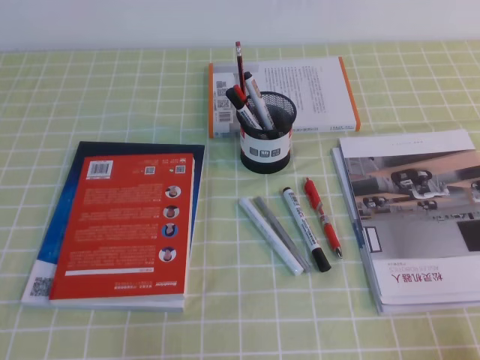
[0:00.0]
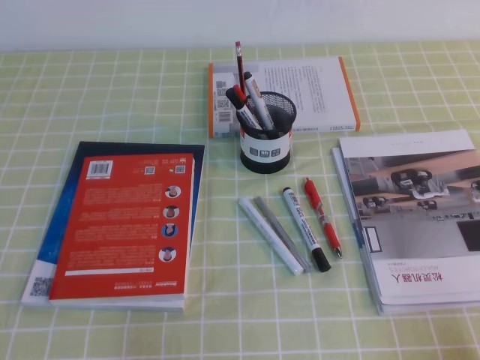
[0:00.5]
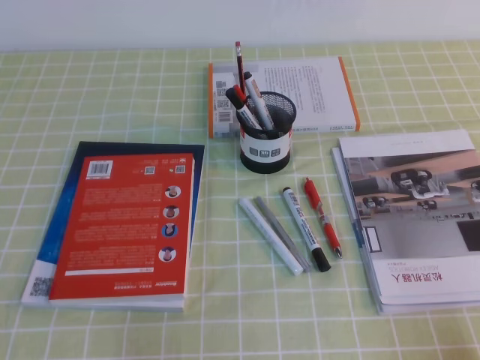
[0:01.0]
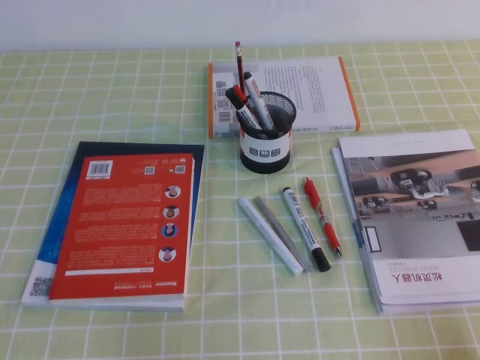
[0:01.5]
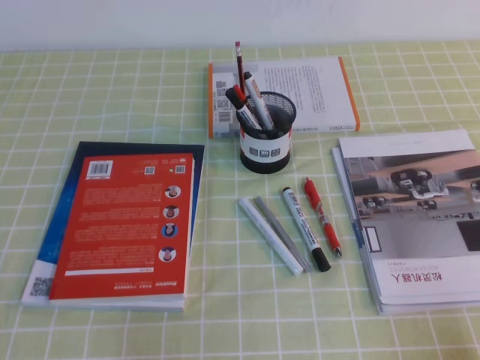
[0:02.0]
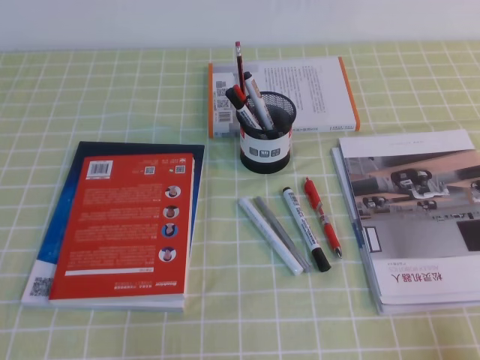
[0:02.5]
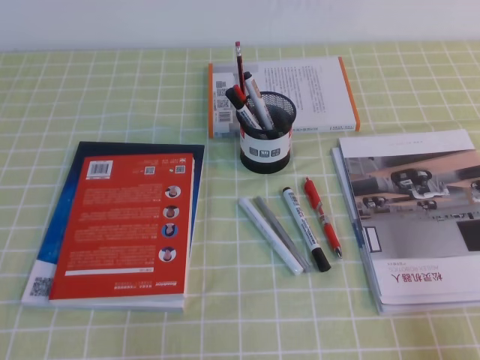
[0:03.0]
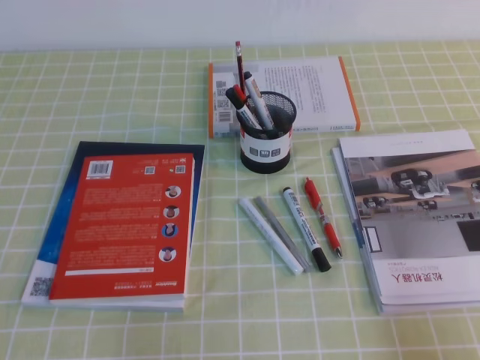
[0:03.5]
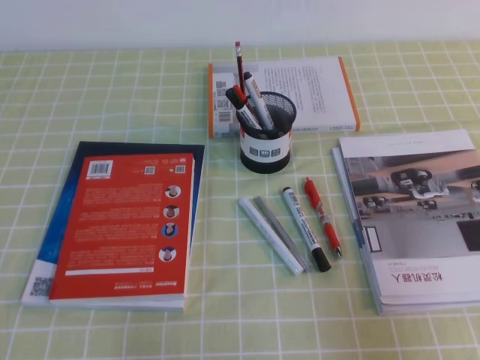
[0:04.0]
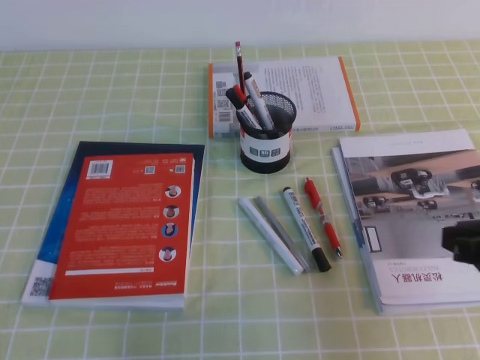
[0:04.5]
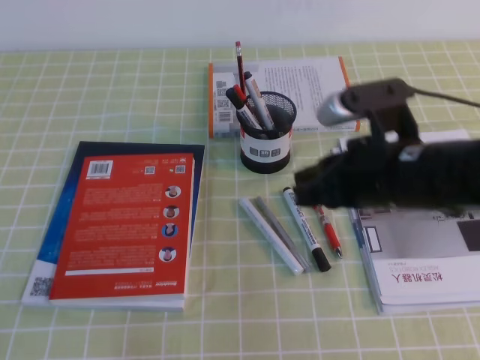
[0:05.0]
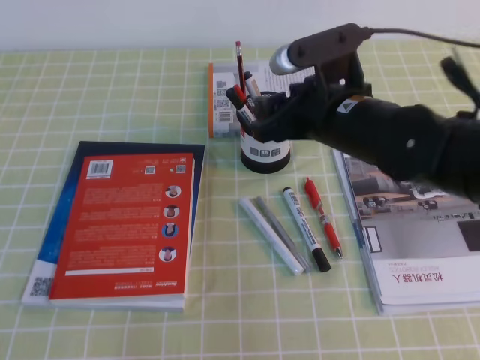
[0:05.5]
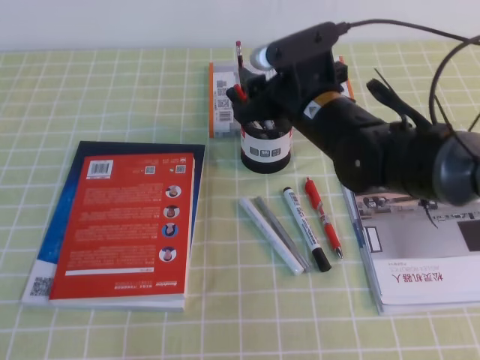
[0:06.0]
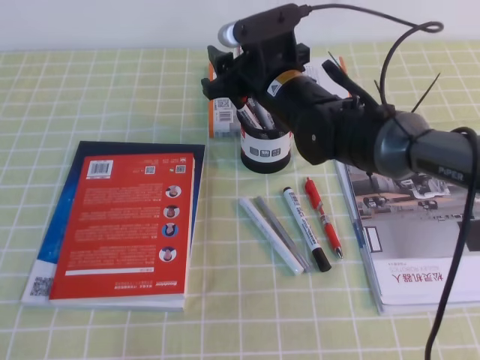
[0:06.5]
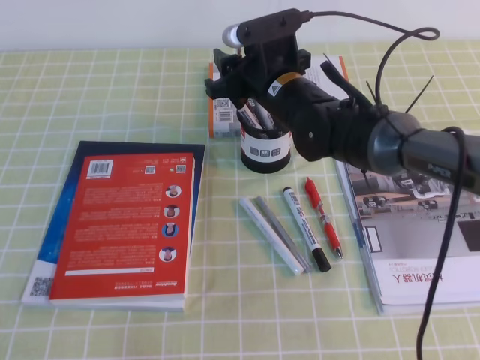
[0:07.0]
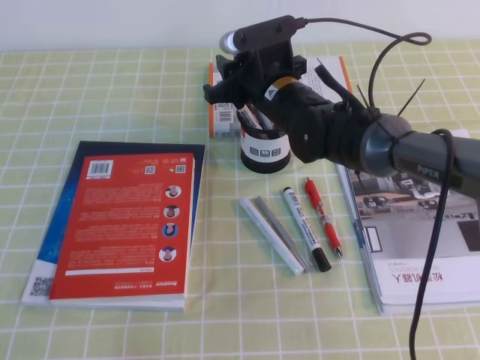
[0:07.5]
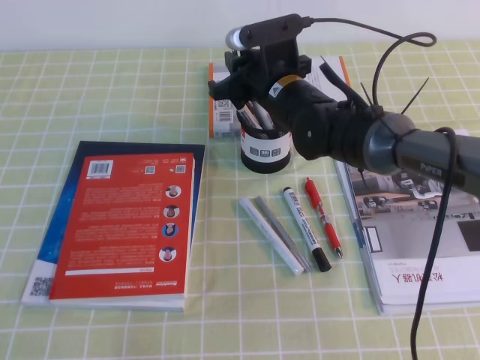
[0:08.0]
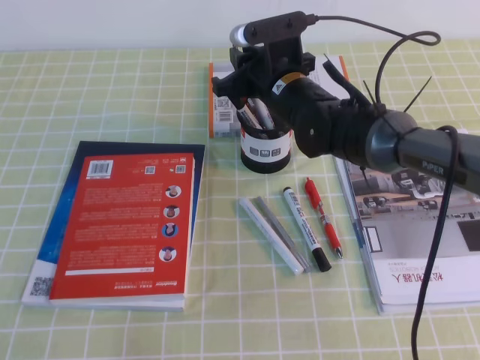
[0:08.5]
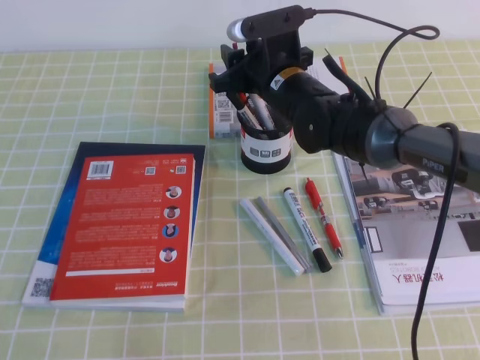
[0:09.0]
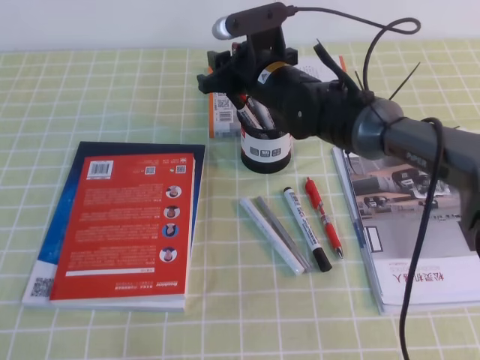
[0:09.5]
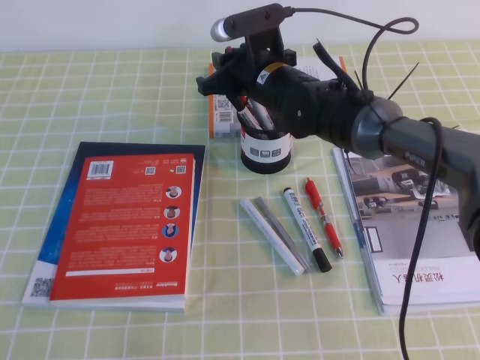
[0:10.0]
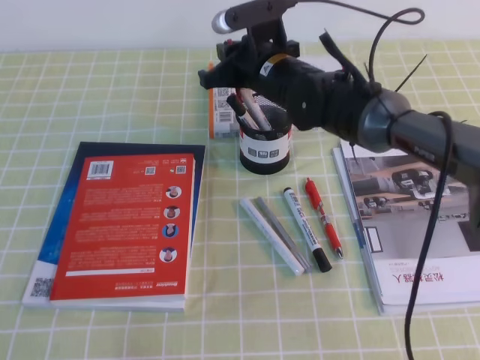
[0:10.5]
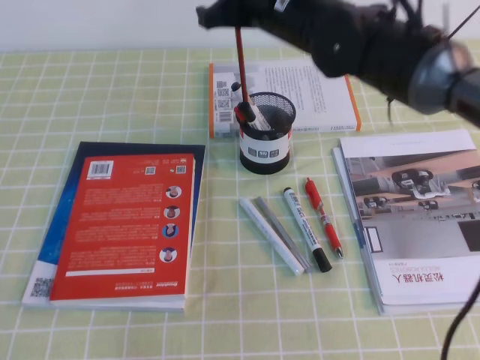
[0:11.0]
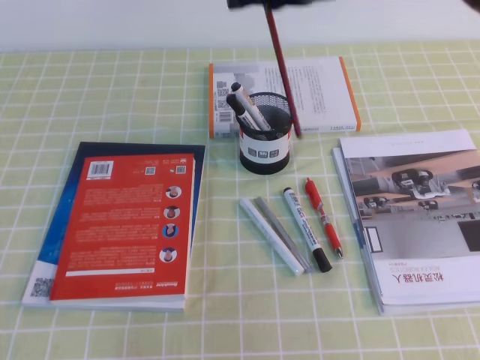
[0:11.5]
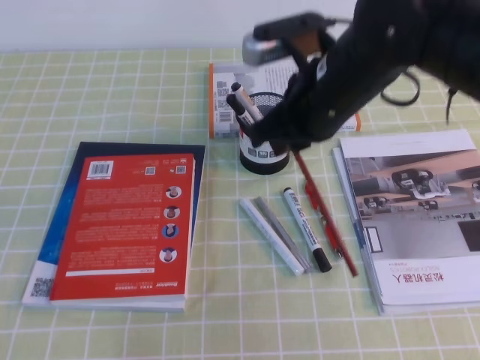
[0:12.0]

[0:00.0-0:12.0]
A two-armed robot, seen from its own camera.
0:00.0 to 0:02.0: Neither gripper changes place.
0:02.0 to 0:04.0: The right gripper is displaced upward by about 10 cm.
0:04.0 to 0:06.0: The right gripper heads forward and to the left, covering roughly 35 cm, and opens its fingers.
0:06.0 to 0:08.0: The right gripper shifts about 5 cm forward, and closes.
0:08.0 to 0:10.0: The right gripper opens and closes again.
0:10.0 to 0:12.0: The right gripper shifts about 15 cm backward, upward and to the right.

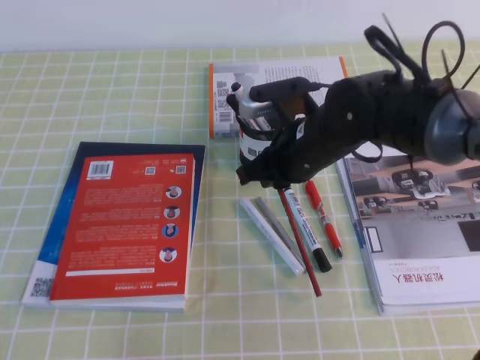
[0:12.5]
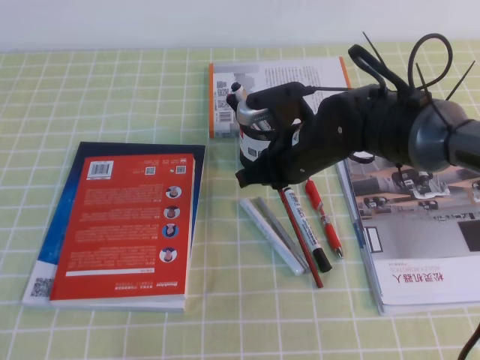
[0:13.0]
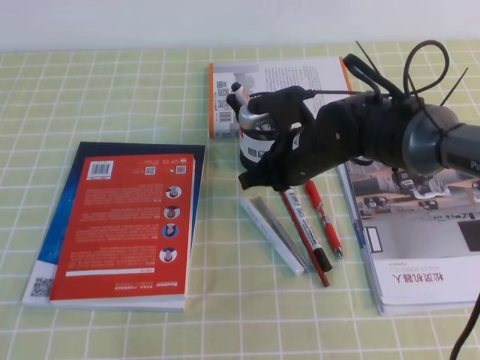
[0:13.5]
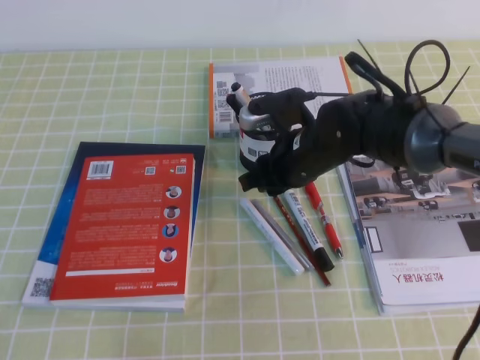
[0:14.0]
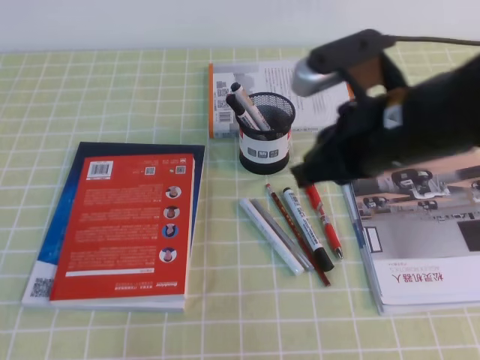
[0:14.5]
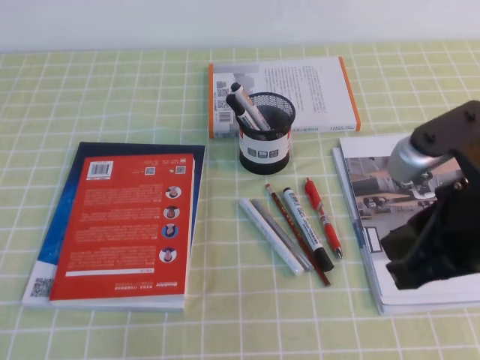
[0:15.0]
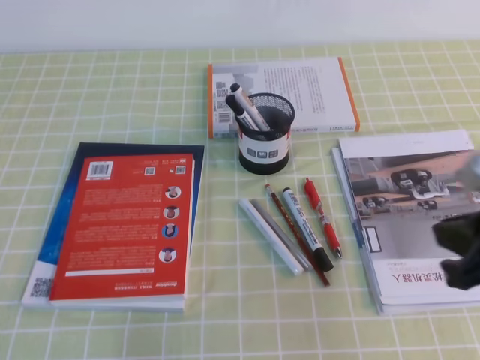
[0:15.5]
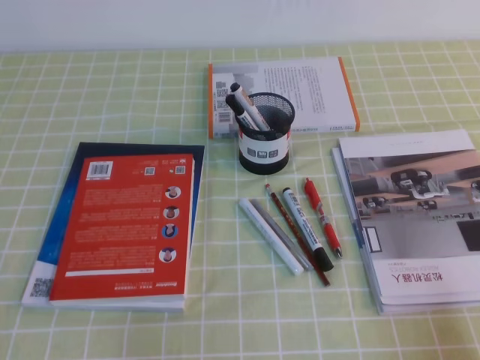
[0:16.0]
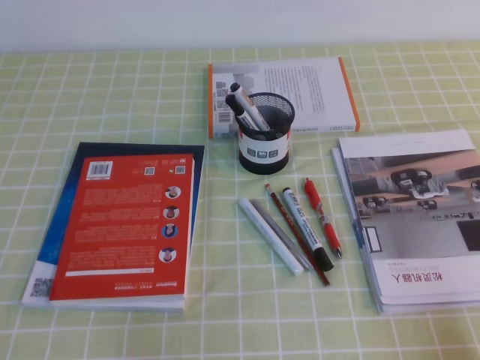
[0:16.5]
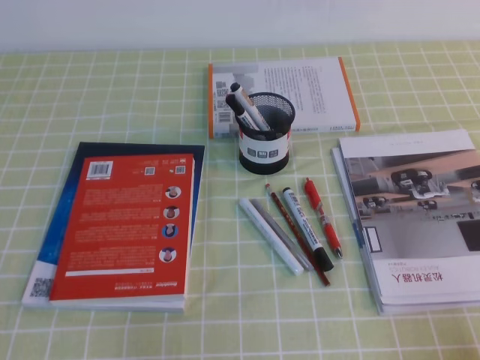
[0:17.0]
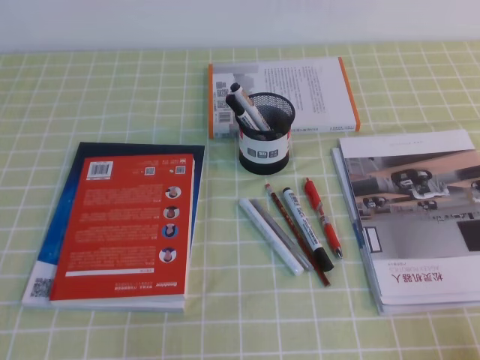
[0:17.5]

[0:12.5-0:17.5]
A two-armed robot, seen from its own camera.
Step, 0:12.5 to 0:17.5: Pick up the pen from the pen holder.
0:12.5 to 0:15.0: The right gripper travels backward, to the right and upward by about 20 cm, and opens, then closes again.
0:15.0 to 0:17.5: The right gripper travels downward, to the right and backward by approximately 25 cm.

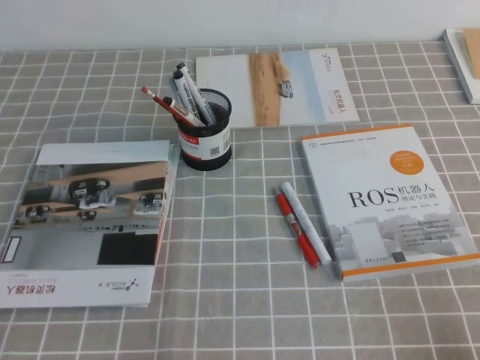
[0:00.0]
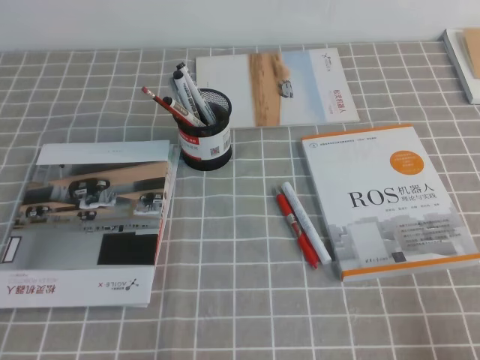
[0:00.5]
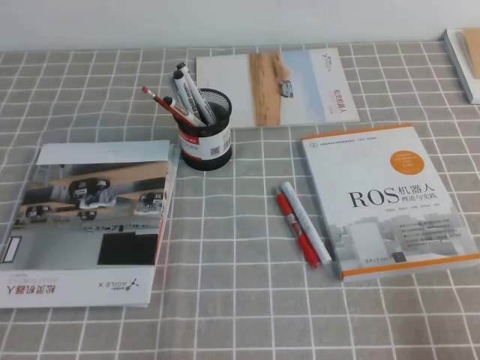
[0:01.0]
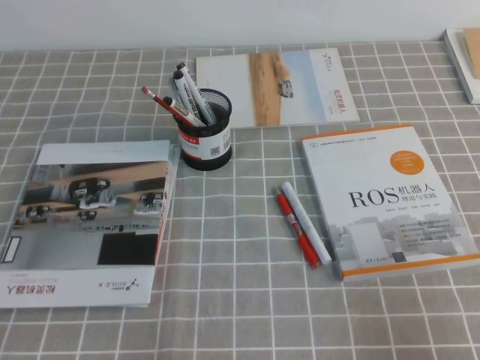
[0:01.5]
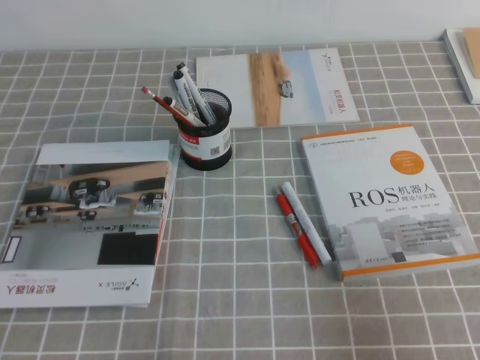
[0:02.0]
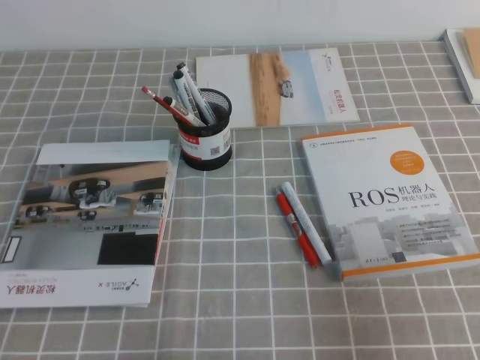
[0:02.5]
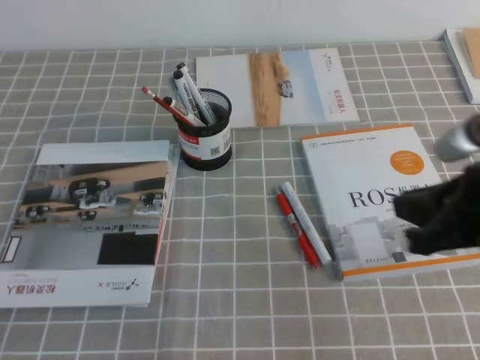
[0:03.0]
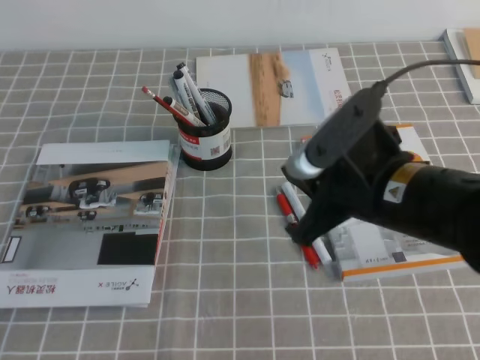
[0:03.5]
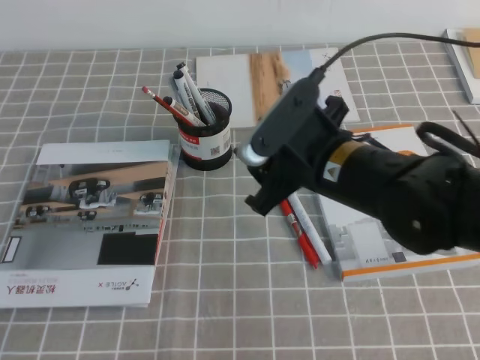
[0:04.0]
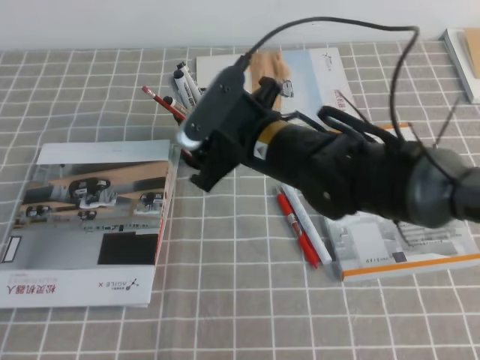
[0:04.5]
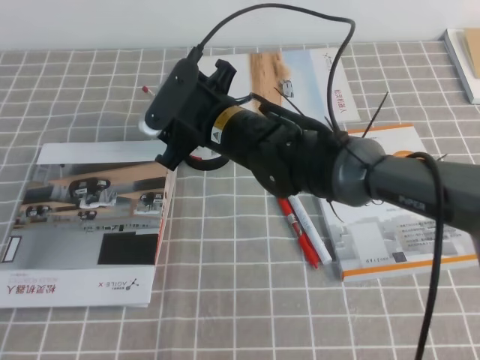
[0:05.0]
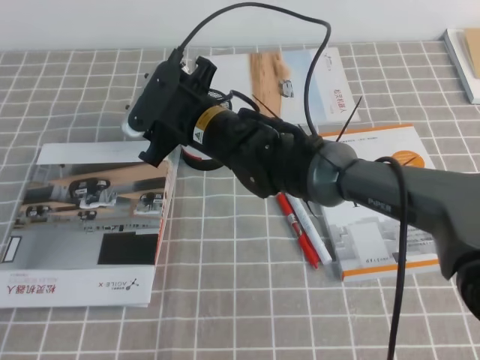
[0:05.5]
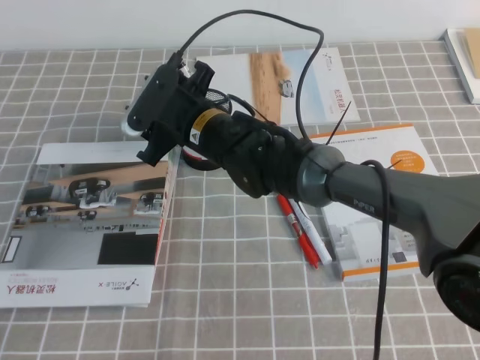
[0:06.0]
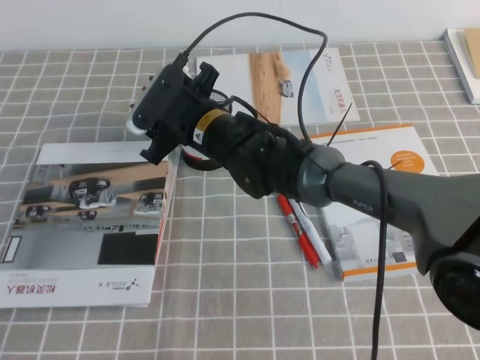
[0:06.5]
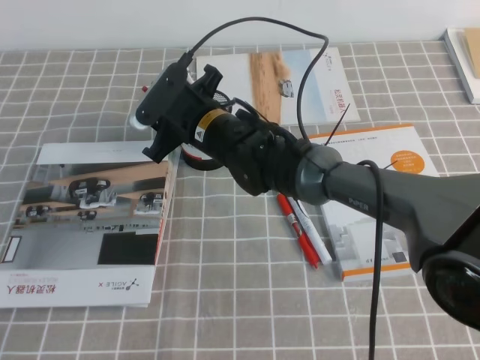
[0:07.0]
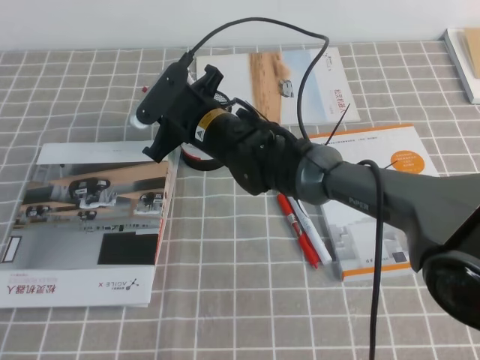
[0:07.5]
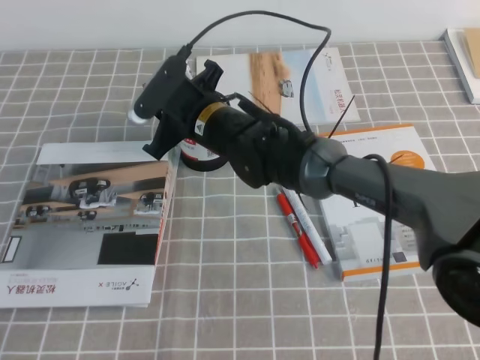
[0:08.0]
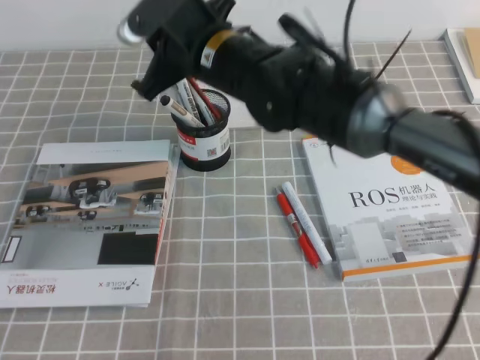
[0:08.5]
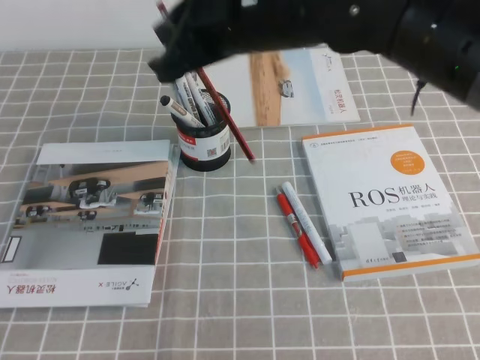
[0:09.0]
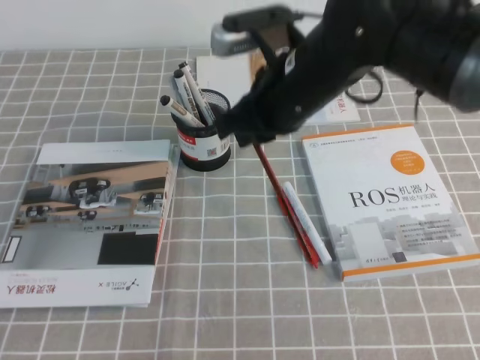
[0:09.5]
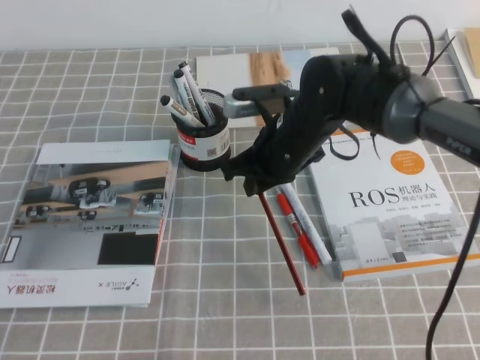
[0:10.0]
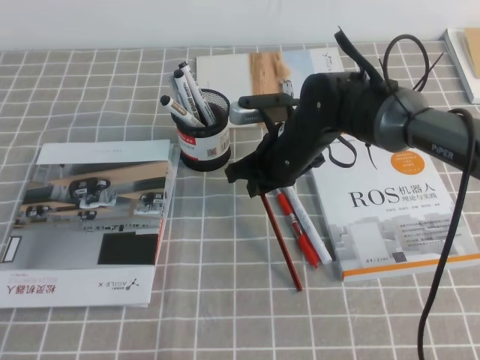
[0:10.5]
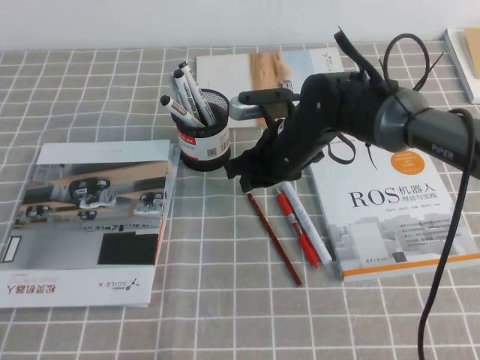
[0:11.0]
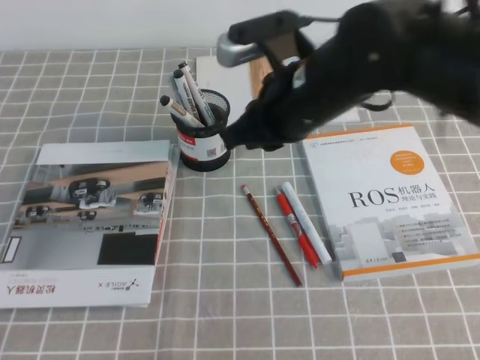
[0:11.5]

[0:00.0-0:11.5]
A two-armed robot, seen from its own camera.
0:00.0 to 0:02.0: The right gripper travels upward by some 10 cm.
0:02.0 to 0:04.0: The right gripper heads to the left and forward, covering roughly 25 cm, and opens up.
0:04.0 to 0:06.0: The right gripper is displaced to the left and forward by about 20 cm.
0:06.0 to 0:07.5: The right gripper closes.
0:07.5 to 0:09.5: The right gripper is displaced upward, to the right and backward by roughly 15 cm.
0:09.5 to 0:11.5: The right gripper reaches roughly 15 cm downward, then returns, and opens and closes again.
